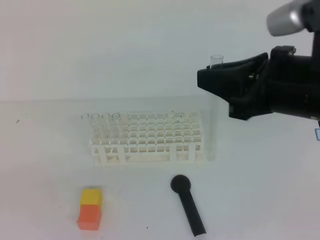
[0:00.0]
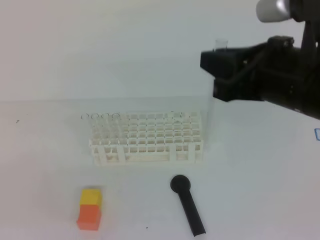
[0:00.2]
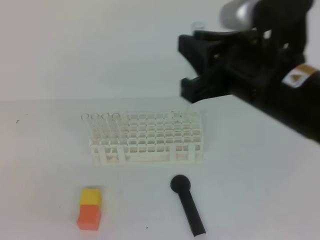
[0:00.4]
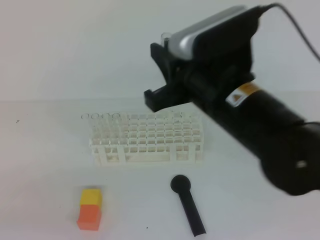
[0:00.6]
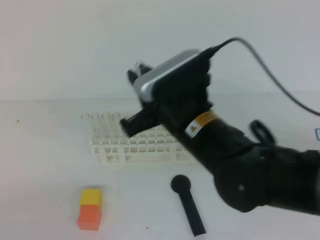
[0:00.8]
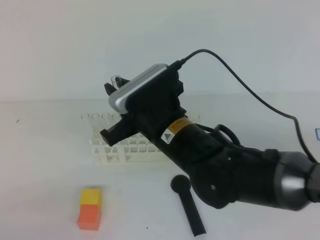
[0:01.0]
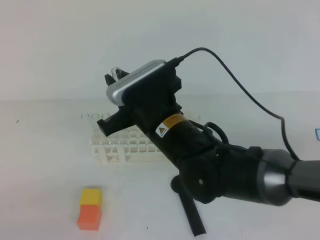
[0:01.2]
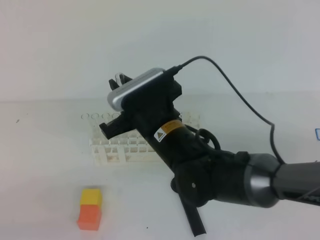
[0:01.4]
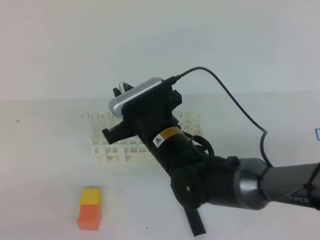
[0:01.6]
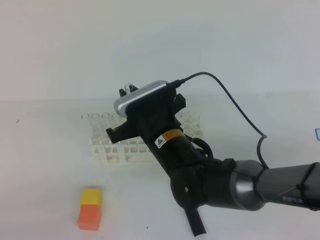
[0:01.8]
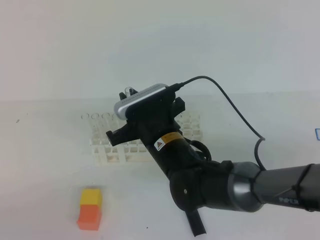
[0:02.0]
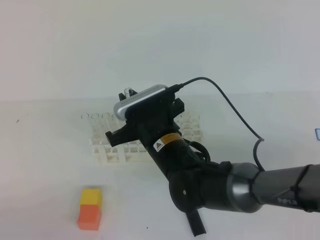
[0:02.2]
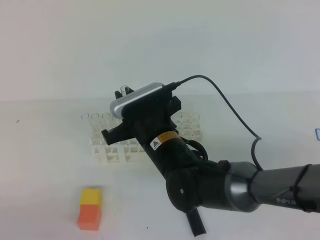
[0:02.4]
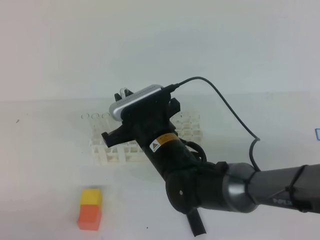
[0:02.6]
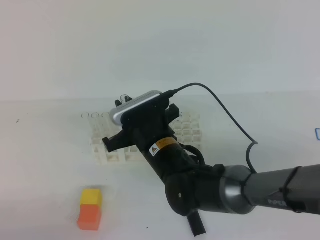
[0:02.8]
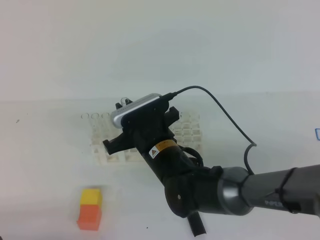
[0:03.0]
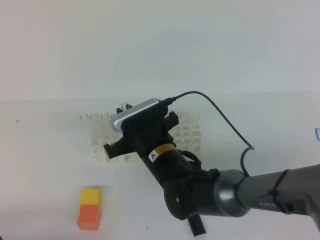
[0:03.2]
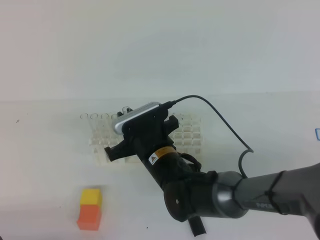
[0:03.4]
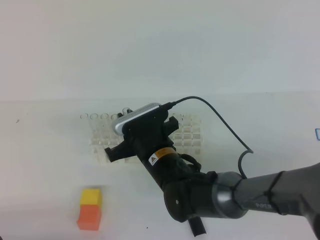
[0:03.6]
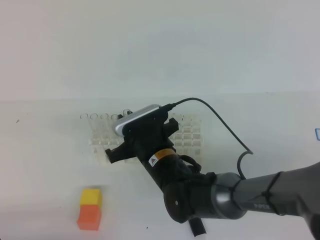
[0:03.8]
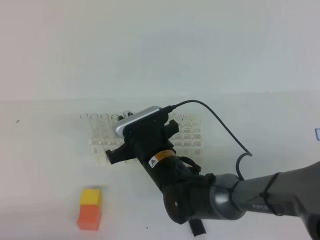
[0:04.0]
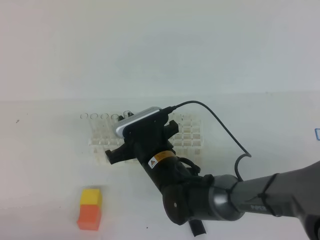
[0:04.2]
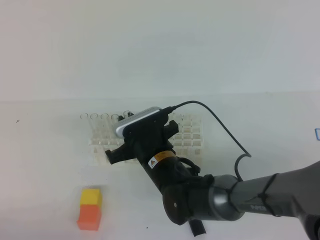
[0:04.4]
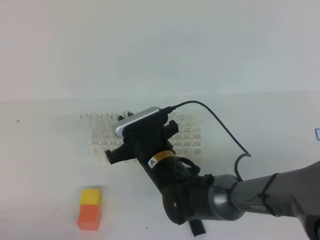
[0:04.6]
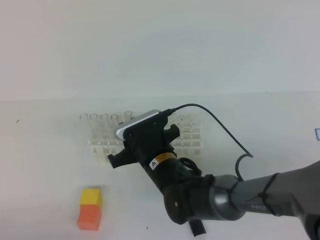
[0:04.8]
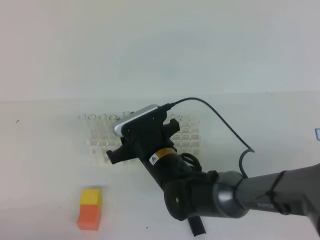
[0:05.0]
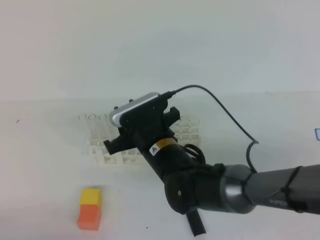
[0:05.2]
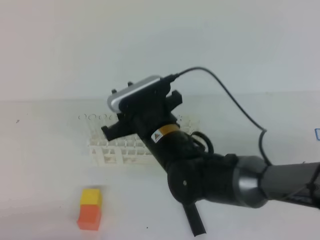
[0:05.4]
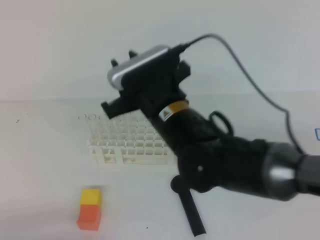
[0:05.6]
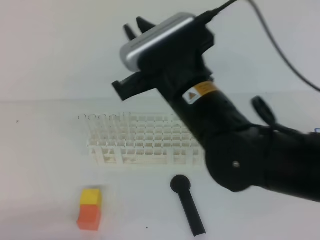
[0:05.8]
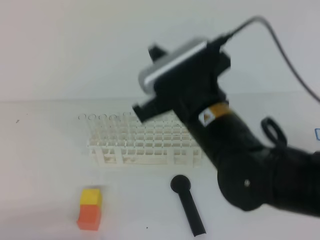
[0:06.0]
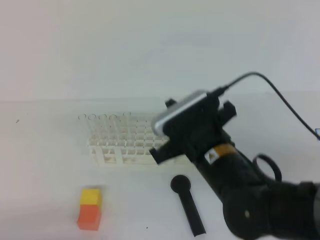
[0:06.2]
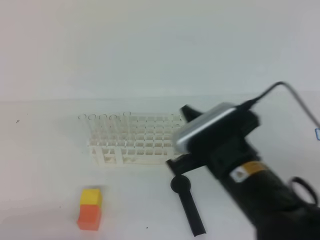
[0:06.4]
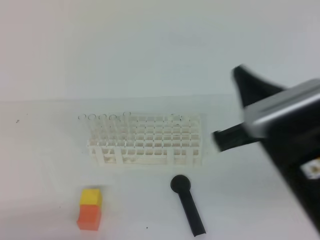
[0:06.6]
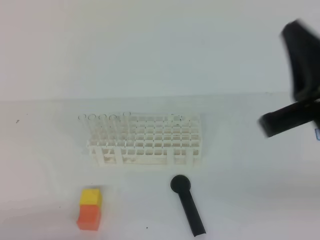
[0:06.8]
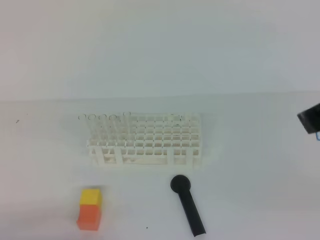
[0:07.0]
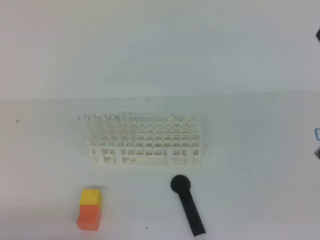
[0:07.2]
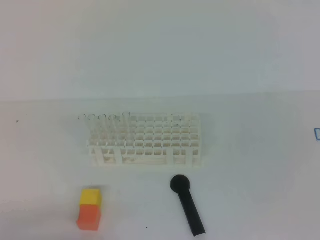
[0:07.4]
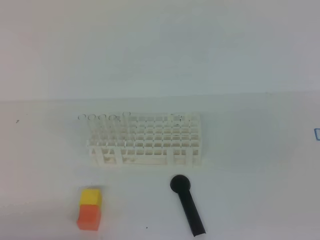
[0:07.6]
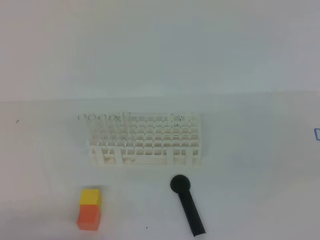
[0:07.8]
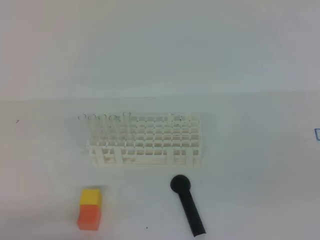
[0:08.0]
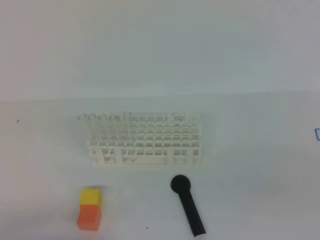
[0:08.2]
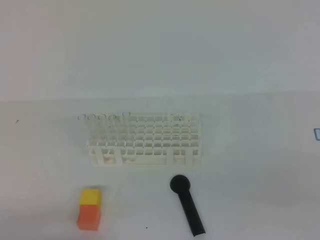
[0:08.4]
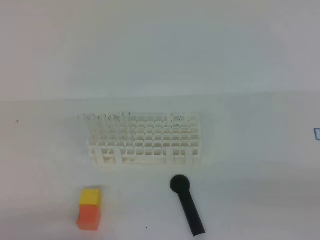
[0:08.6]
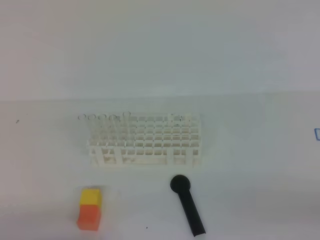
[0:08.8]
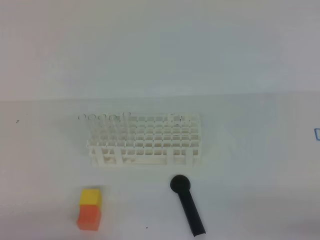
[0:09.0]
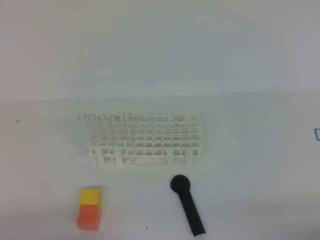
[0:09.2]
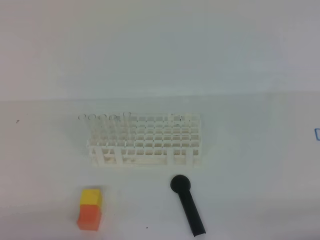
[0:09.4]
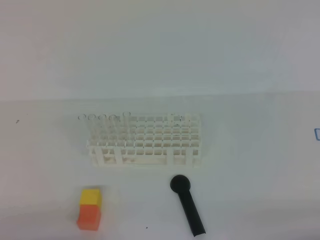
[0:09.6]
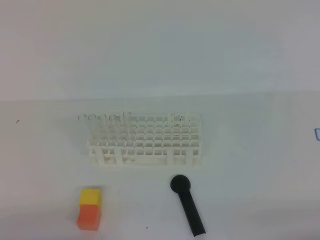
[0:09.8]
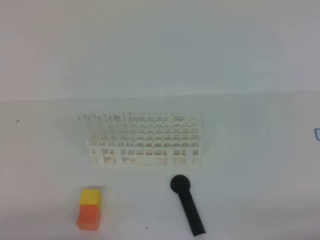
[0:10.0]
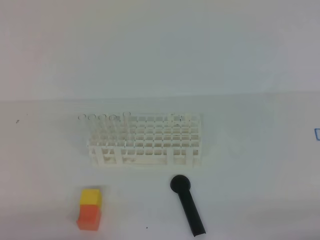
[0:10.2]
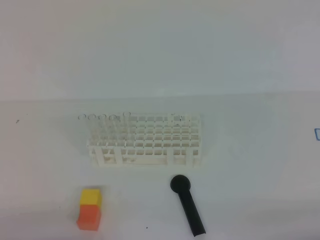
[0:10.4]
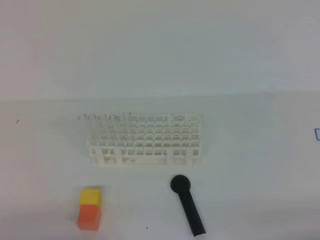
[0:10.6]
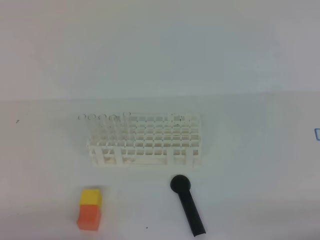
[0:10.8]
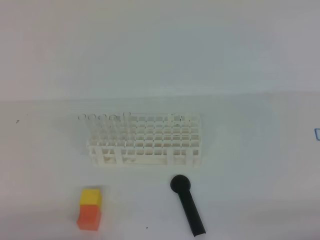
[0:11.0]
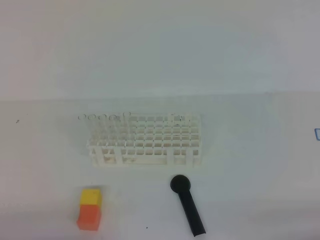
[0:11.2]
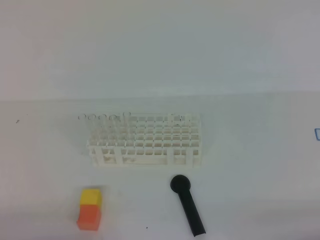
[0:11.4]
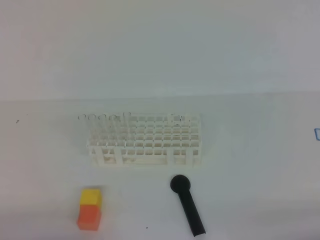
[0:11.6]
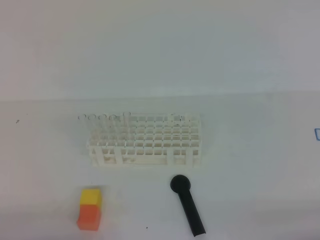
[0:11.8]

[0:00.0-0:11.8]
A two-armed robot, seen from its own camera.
0:00.0 to 0:01.4: The left gripper goes roughly 10 cm downward. The right gripper travels to the left and downward by approximately 20 cm.
0:01.4 to 0:03.0: The two grippers go approximately 5 cm downward.
0:03.0 to 0:04.4: The grippers make only small movements.
0:04.4 to 0:06.0: The right gripper moves upward and to the right, approximately 15 cm.
0:06.0 to 0:07.4: The right gripper shifts about 25 cm to the right, backward and upward.
0:07.4 to 0:08.8: The right gripper goes about 20 cm downward and to the right.
